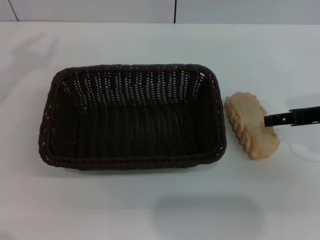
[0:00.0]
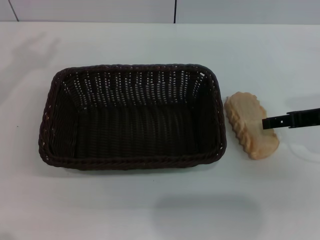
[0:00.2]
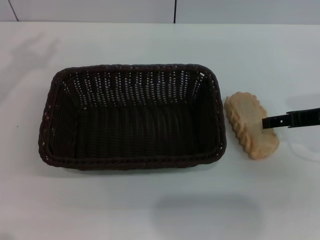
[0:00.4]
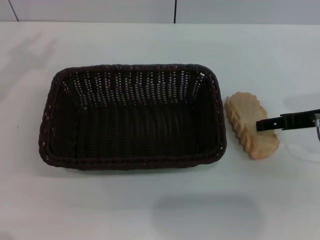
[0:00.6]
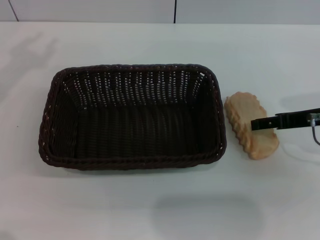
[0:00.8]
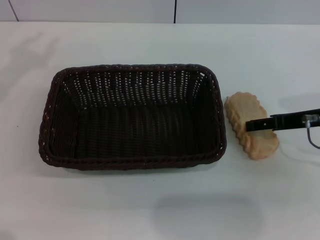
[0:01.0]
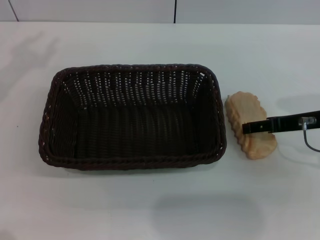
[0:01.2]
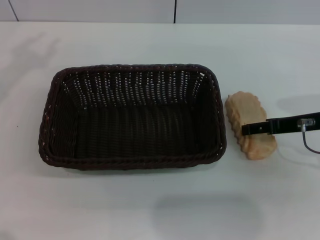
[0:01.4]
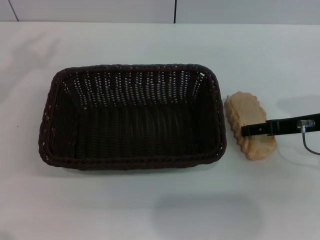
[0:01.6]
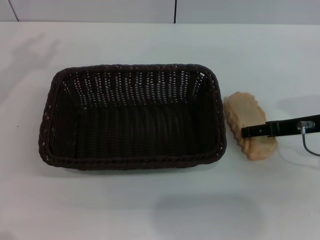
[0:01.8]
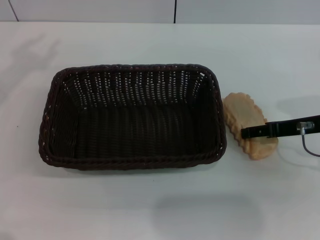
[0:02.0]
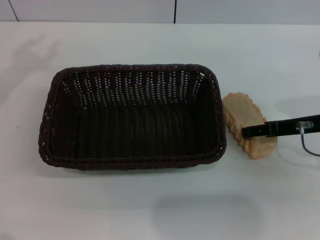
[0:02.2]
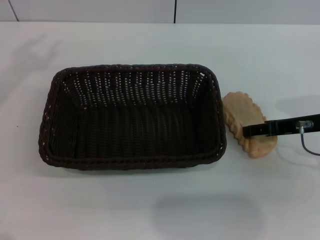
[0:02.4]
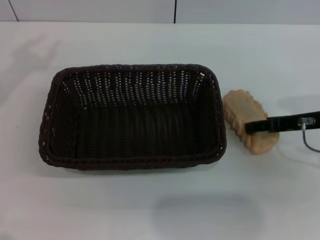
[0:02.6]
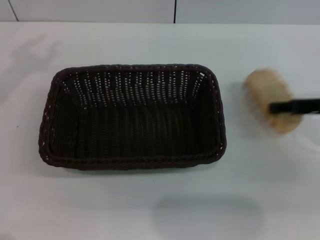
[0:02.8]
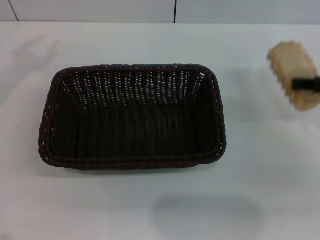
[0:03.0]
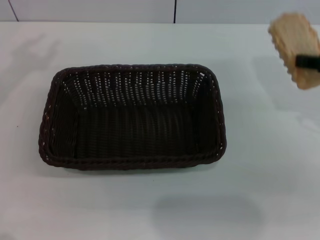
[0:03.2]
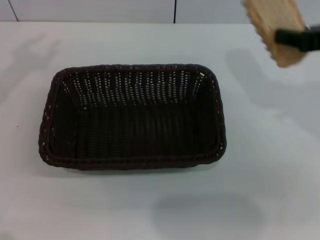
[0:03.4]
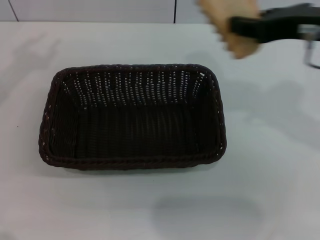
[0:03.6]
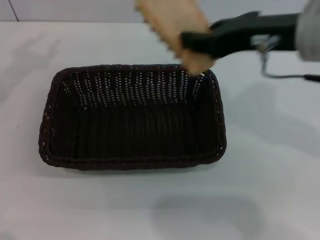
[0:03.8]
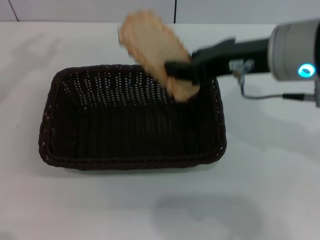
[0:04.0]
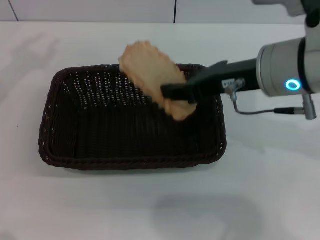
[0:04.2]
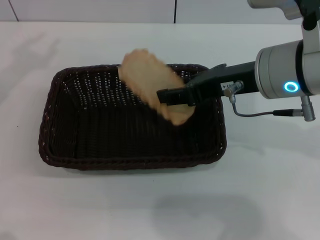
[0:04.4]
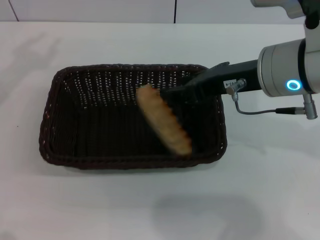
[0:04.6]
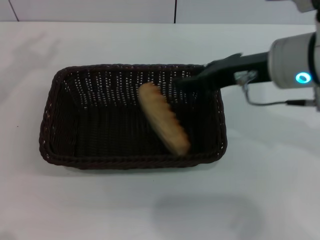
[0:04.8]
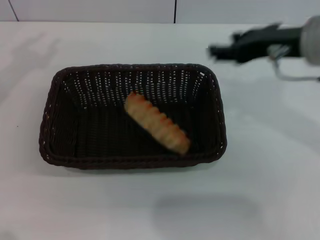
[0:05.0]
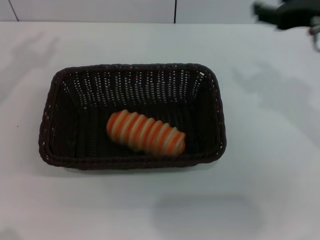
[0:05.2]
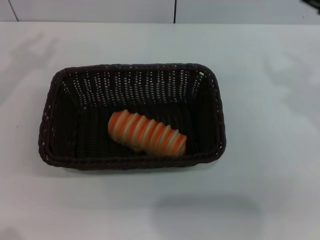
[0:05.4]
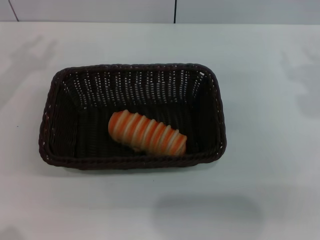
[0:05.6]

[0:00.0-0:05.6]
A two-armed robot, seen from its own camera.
Step, 0.0 to 2.6 s: Grasp the long bread with right gripper.
Step, 2.8 to 5.0 s: Place the long bread in the basket with right gripper.
0.0 to 1.4 s: The grippers move only a little.
1.4 to 2.8 s: The right gripper closes its fingers.
2.8 to 4.2 s: The right gripper goes roughly 15 cm to the left and upward, and closes its fingers.
4.2 to 5.6 s: The left gripper travels downward by roughly 10 cm; the right gripper goes some 15 cm to the right, and opens up.

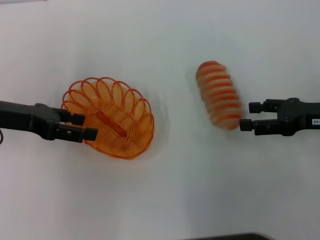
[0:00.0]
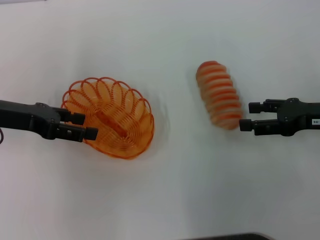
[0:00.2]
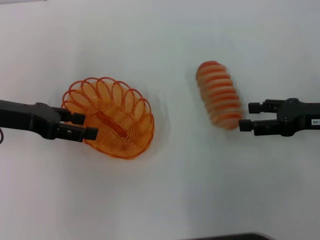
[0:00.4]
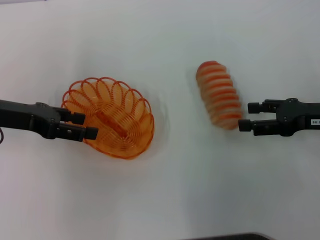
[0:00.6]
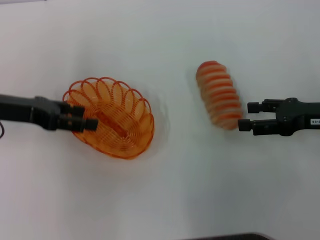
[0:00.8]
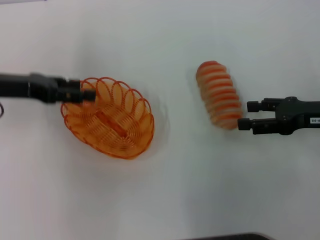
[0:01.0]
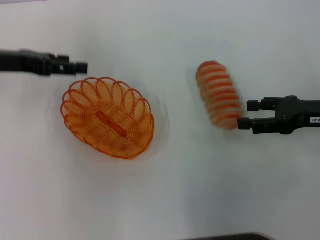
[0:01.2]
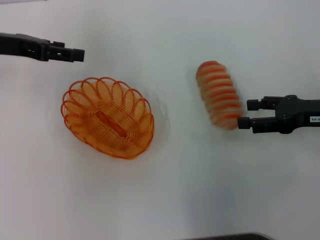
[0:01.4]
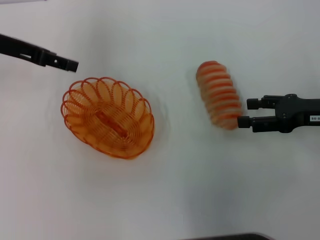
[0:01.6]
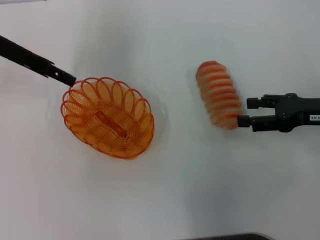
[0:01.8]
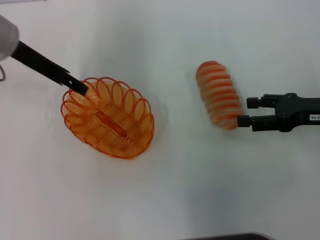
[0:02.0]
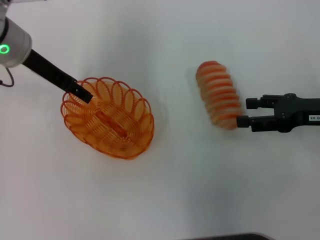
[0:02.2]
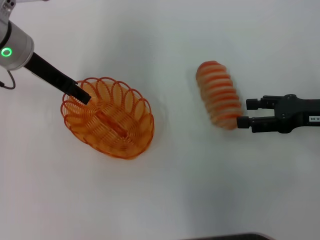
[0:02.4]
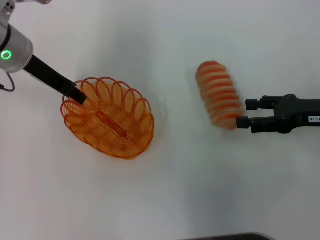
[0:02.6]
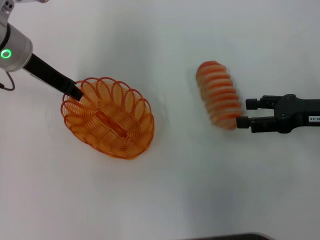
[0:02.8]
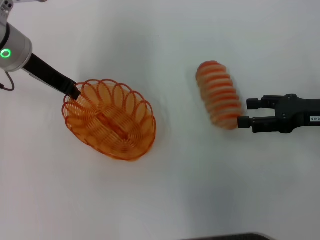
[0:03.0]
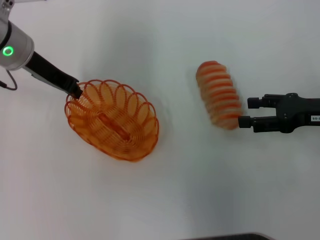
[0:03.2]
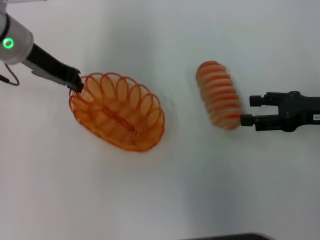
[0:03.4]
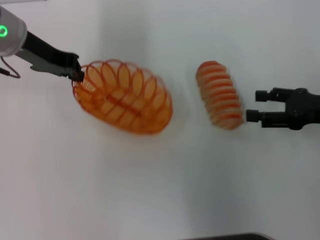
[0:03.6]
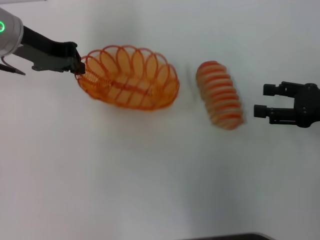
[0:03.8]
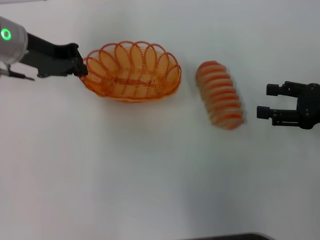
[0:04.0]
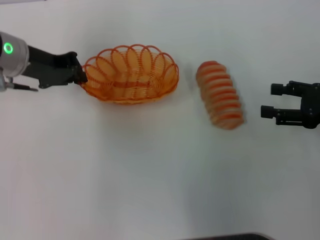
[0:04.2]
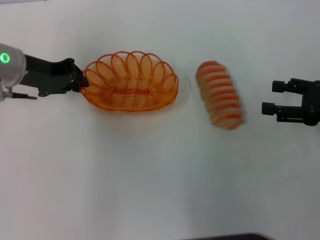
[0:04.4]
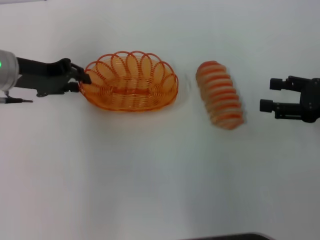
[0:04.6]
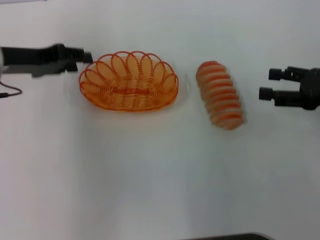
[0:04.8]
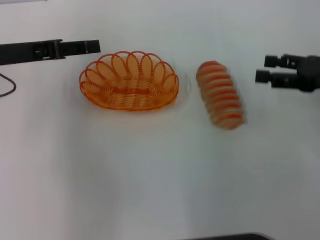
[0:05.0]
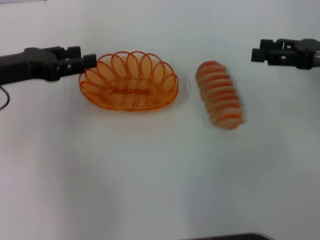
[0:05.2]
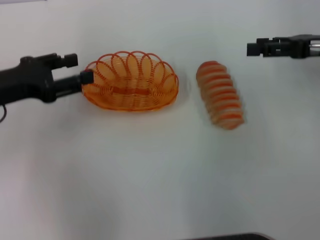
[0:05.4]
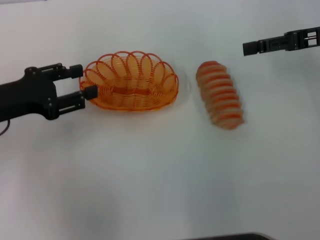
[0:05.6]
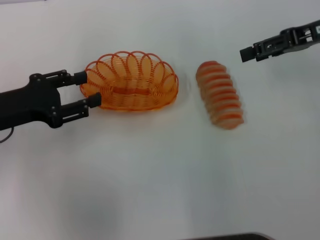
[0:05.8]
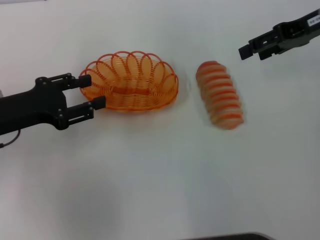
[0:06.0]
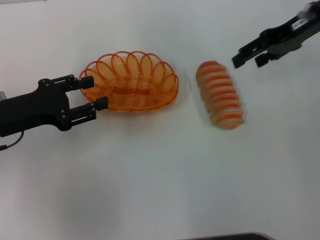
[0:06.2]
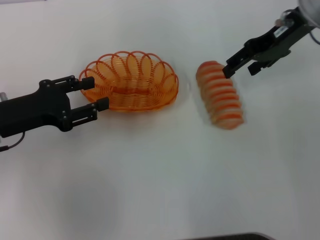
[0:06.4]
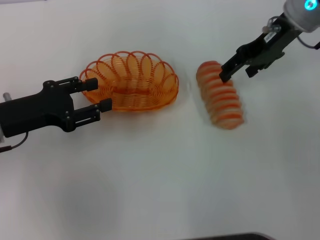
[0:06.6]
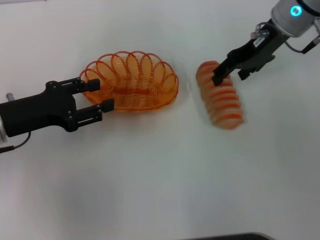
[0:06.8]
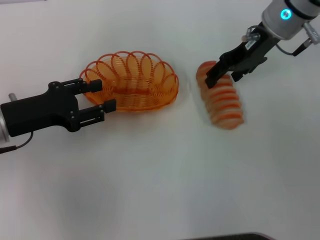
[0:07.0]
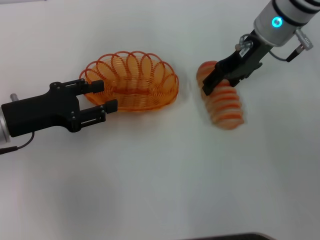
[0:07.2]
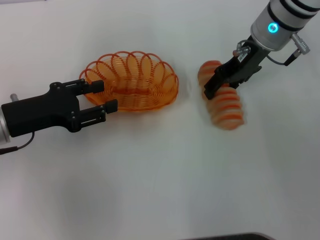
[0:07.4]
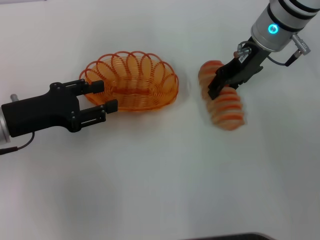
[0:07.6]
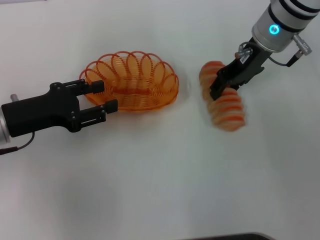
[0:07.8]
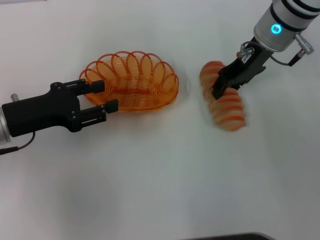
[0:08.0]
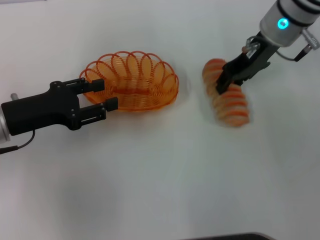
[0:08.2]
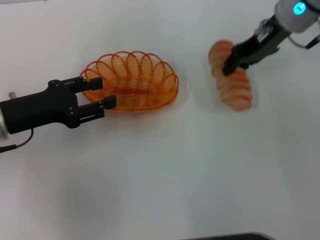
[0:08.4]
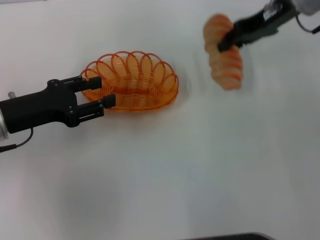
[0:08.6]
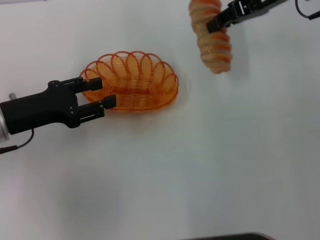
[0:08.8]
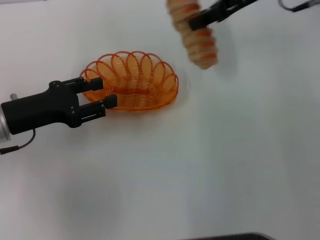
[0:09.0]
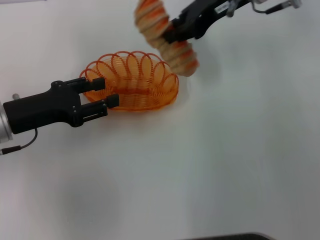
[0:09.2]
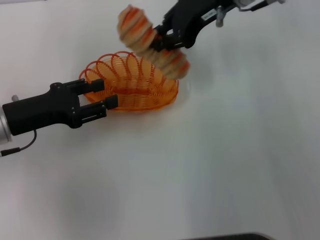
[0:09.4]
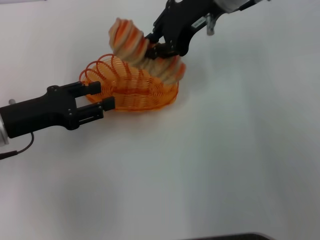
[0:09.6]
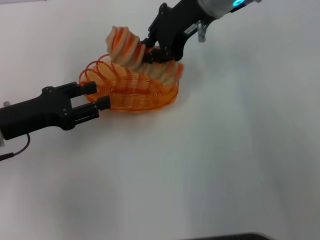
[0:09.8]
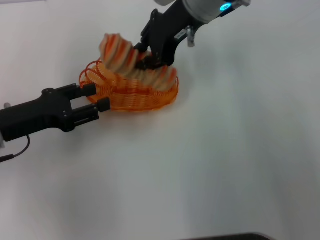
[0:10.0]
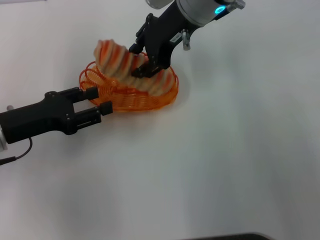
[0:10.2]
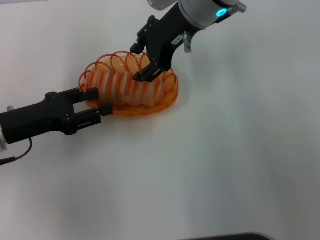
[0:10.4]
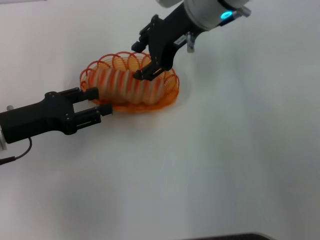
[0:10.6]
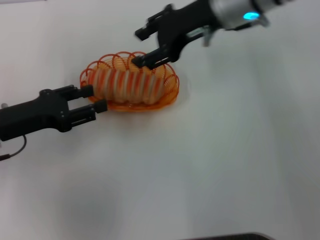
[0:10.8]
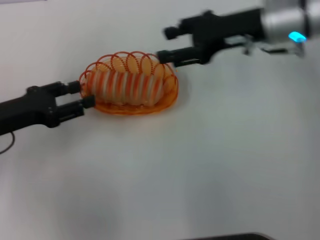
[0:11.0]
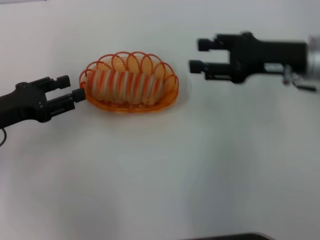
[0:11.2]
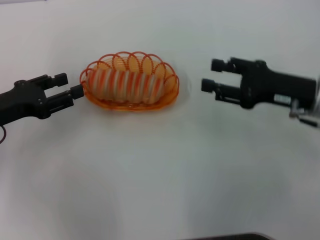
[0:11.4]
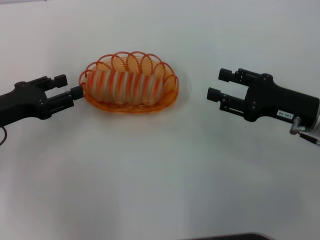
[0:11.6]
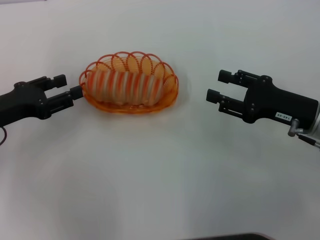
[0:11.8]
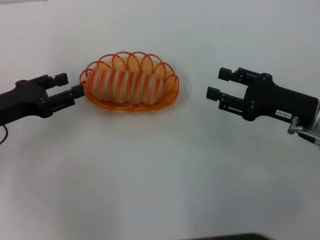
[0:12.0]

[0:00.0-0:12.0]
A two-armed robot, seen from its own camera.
Step, 0.0 to 3.4 s: Pick up the basket with the left gripper.
Step, 3.6 to 5.4 s: Place the basket in the center of view with the left gripper.
Step, 5.8 to 8.2 s: Pick up the long bread with the right gripper.
Step, 8.4 to 10.8 s: Place the long bread into the basket with the right gripper.
0.0 to 1.6 s: The left gripper travels forward and upward by about 10 cm.
1.6 to 3.0 s: The left gripper goes about 5 cm to the right, and closes.
4.4 to 6.0 s: The right gripper is displaced forward, upward and to the left by approximately 20 cm. Meanwhile the left gripper travels backward by approximately 10 cm, and opens its fingers.
6.0 to 7.6 s: The right gripper shifts some 10 cm to the left.
7.6 to 9.0 s: The right gripper is displaced upward by roughly 5 cm, and closes up.
9.0 to 10.4 s: The right gripper goes roughly 10 cm to the left.
10.4 to 12.0 s: The right gripper travels to the right, backward and downward by roughly 30 cm.

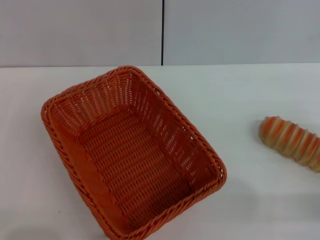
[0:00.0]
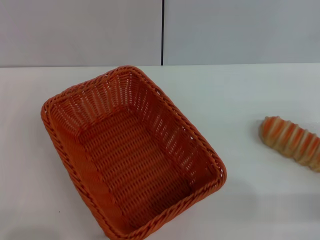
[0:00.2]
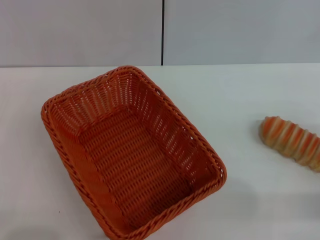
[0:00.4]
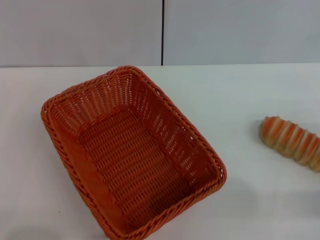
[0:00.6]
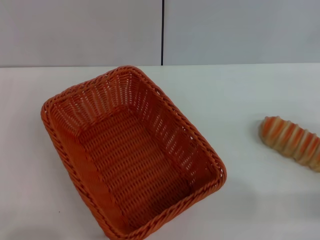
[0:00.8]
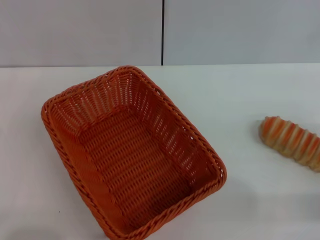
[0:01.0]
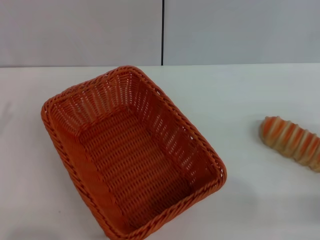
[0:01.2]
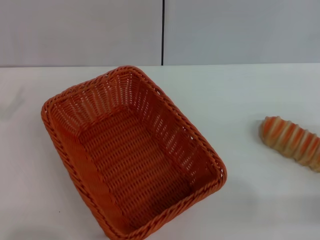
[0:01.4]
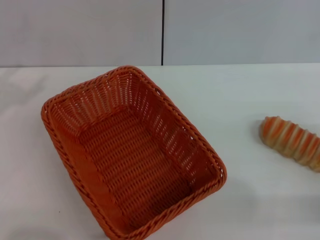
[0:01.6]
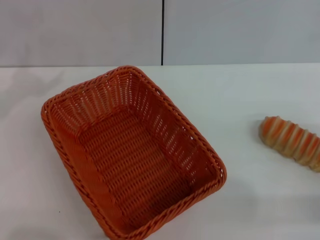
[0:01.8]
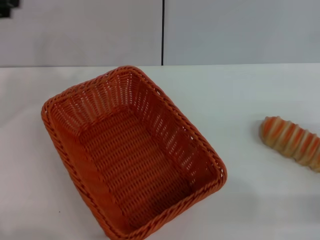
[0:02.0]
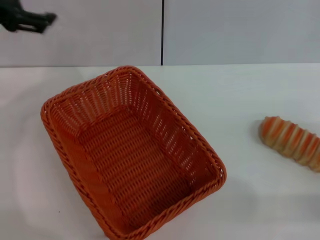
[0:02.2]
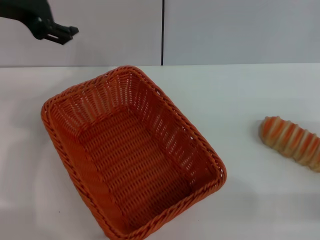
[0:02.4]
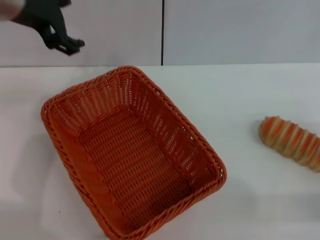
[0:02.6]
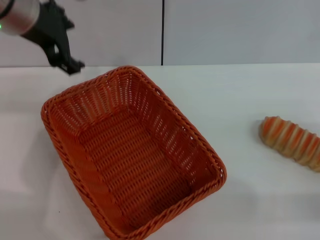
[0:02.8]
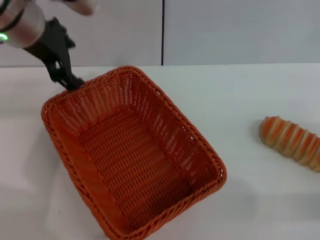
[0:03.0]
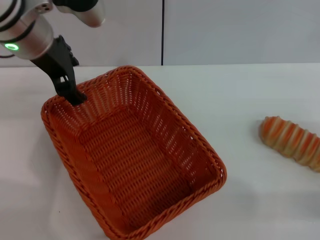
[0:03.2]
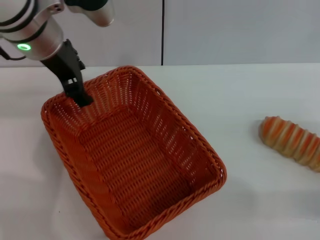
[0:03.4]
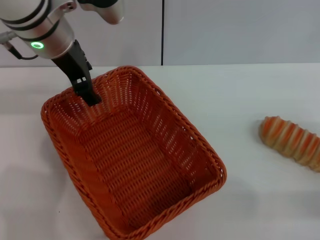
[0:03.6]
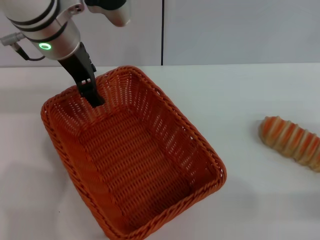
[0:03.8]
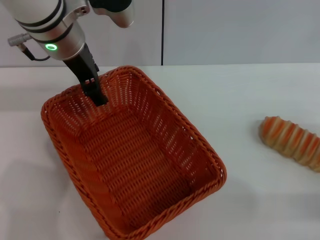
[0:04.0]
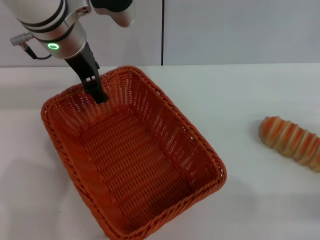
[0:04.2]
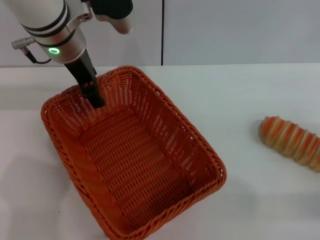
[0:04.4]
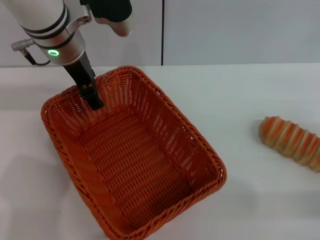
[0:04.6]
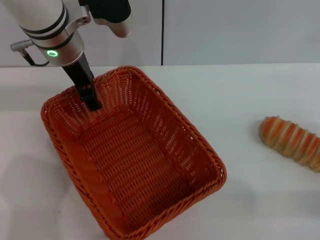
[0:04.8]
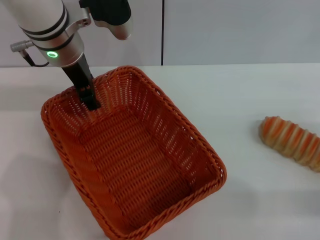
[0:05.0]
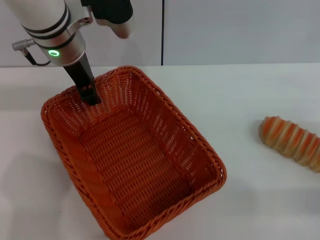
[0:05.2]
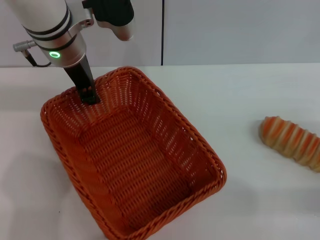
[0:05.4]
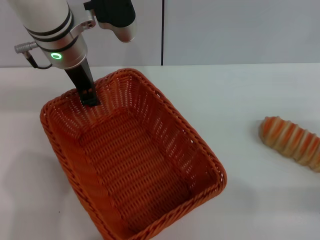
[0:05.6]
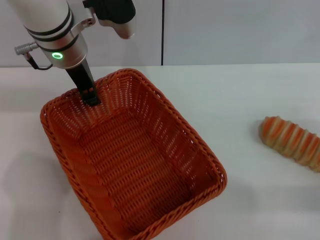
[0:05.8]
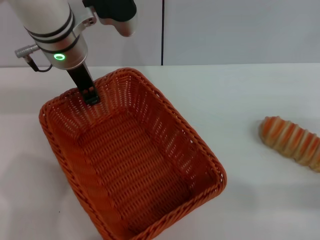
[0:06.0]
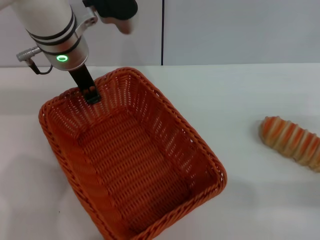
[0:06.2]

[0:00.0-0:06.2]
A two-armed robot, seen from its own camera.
1.6 to 3.2 s: The left gripper is displaced to the right and forward by roughly 25 cm.
3.2 to 4.6 s: The left gripper shifts by approximately 5 cm.
4.6 to 6.2 s: The left gripper closes its fingers.
